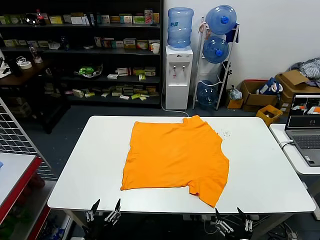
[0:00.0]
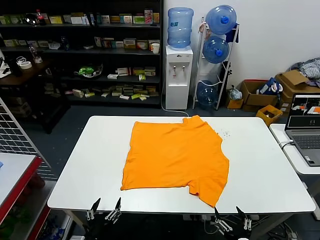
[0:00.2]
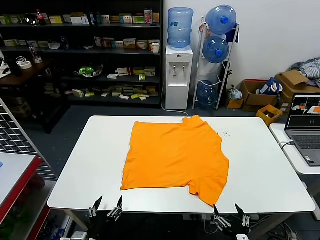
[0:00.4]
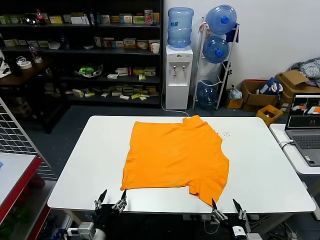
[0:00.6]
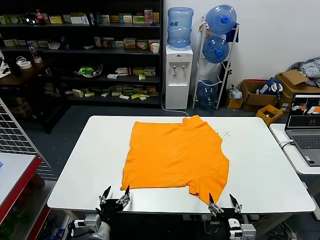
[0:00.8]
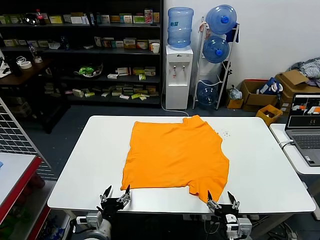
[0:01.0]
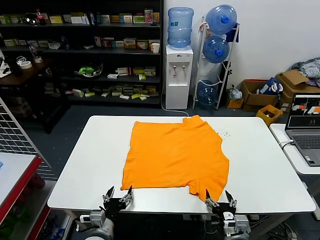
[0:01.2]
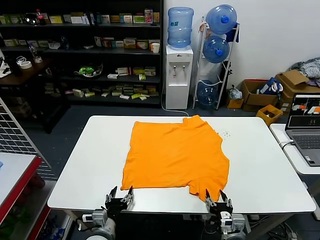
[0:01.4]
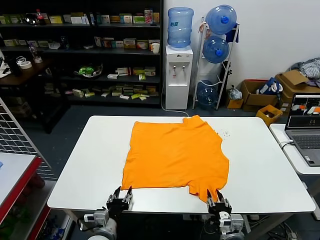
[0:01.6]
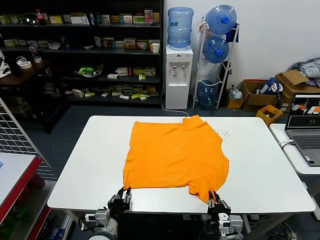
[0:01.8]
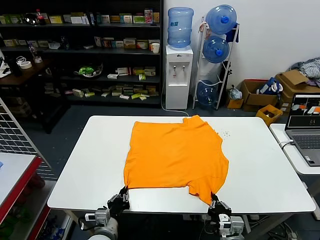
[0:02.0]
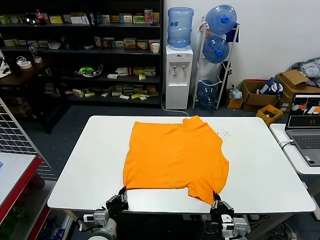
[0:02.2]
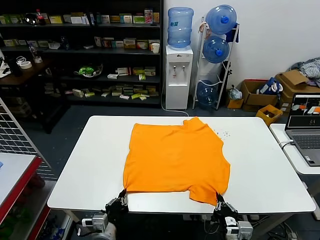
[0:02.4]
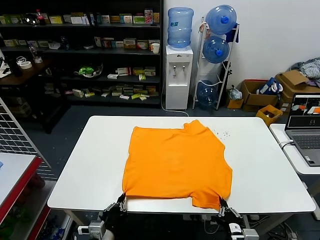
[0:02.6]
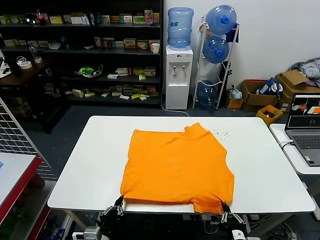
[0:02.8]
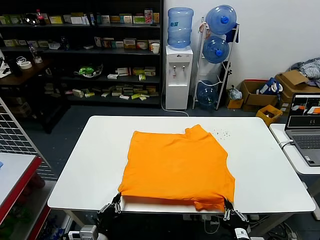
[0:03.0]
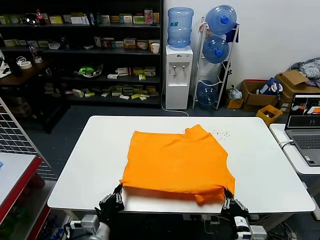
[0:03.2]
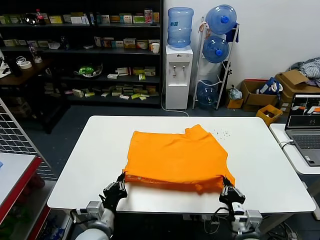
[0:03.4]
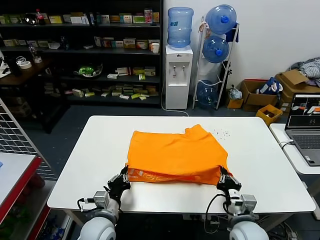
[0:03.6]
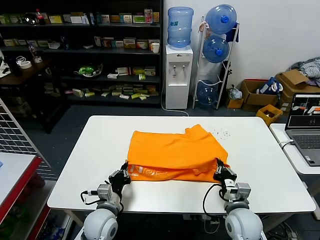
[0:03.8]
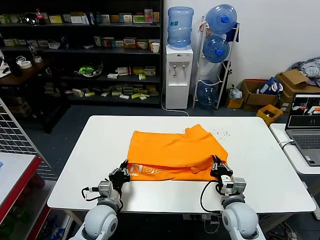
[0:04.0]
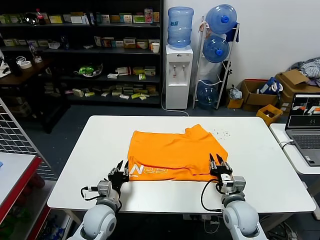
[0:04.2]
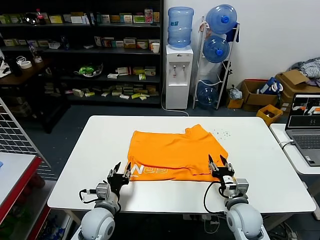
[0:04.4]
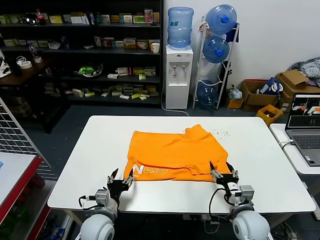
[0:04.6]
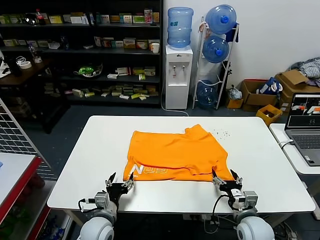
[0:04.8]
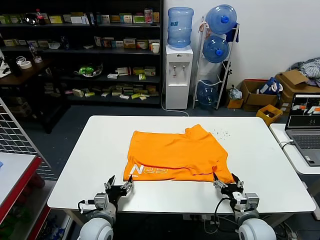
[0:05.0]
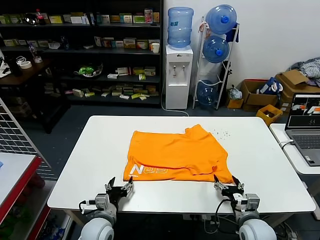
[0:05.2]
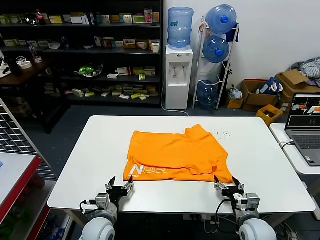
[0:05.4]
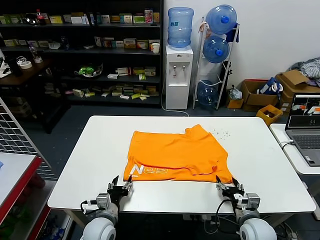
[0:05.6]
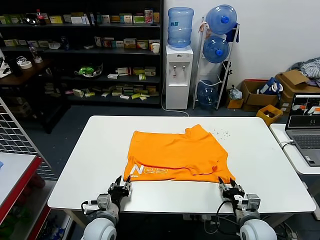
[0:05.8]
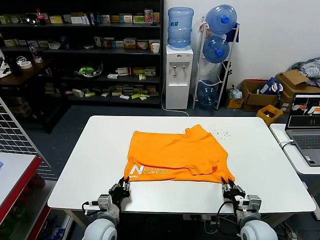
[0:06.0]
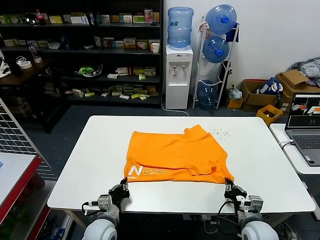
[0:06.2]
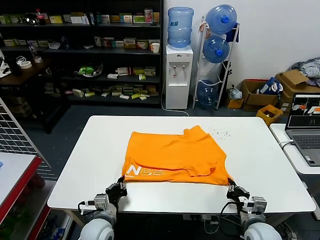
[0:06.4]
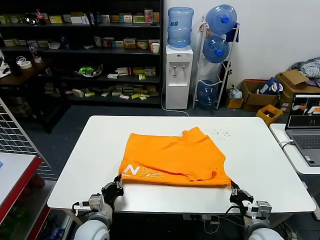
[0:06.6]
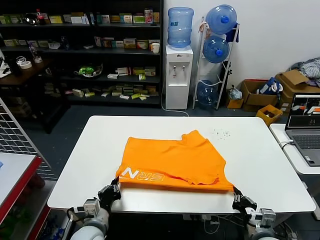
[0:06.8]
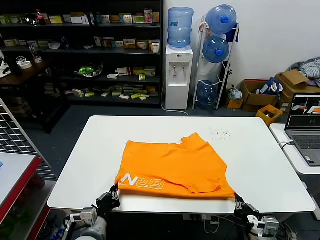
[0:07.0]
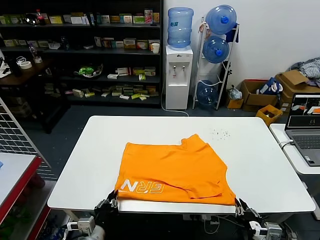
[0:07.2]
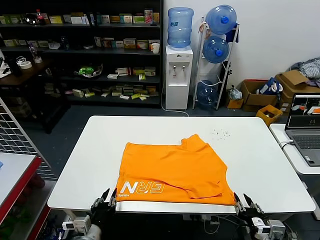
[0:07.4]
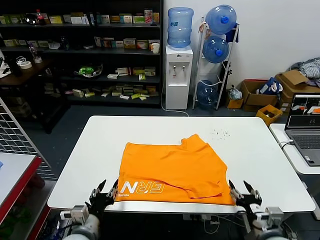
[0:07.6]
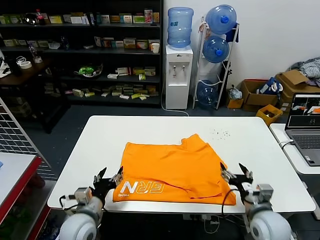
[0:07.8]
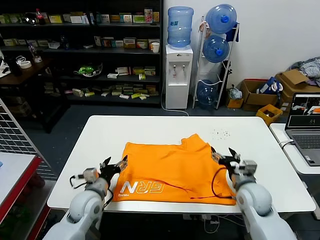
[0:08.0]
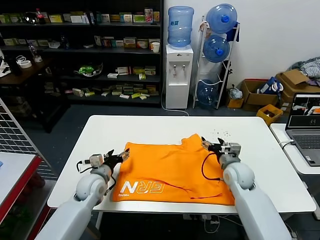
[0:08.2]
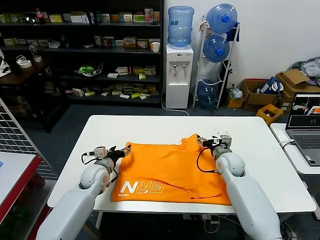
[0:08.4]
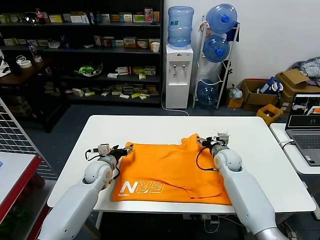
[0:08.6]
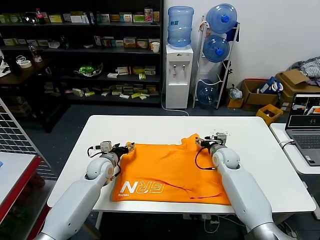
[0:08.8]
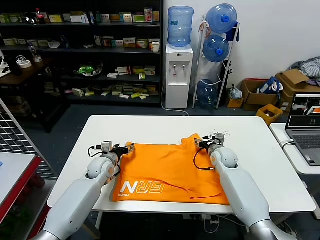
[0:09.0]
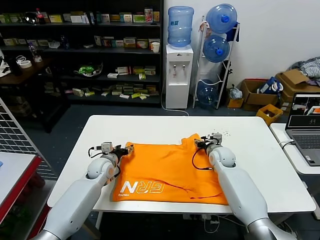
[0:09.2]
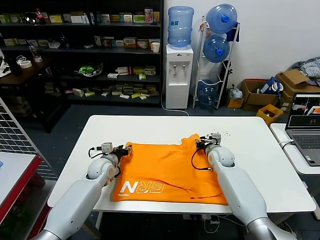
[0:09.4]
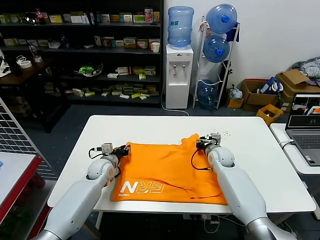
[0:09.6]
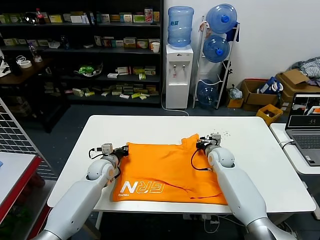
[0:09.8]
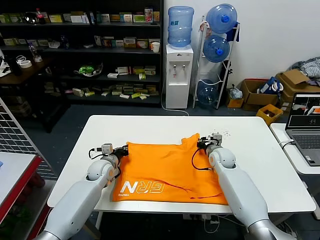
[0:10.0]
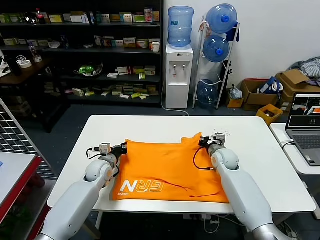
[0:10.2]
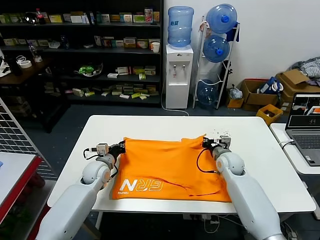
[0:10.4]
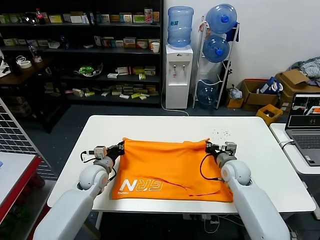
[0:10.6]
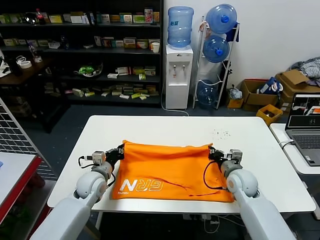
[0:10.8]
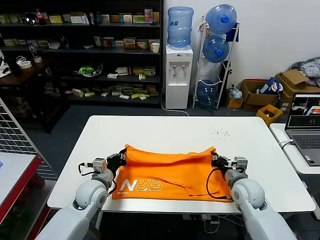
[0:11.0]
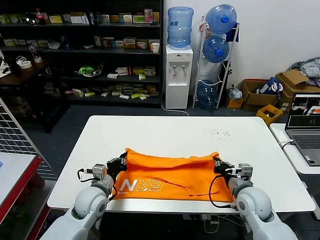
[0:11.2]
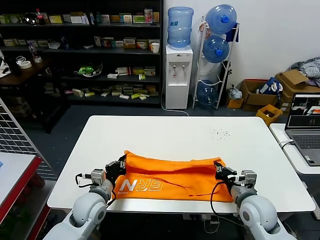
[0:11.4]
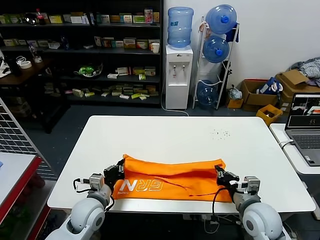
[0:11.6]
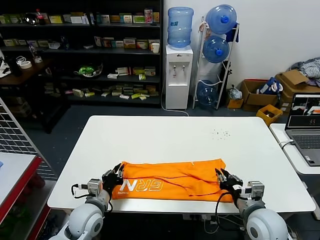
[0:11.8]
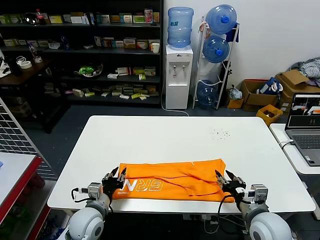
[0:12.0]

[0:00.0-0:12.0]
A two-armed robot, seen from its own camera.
Task of the whole recording: fold and organize the clothes.
Step, 0:00.0 to 0:02.2: use both grippers simultaneously to clamp the lower edge of the clothing fabric.
Step, 0:02.6 to 0:04.6: use both grippers to drag the lower edge of the fabric forward and fold it over the upper edge.
Step, 0:04.8 to 0:07.6: Drag the clothes downward with both gripper.
0:01.6 to 0:03.0: The left gripper travels backward and upward by about 10 cm, and closes up. The right gripper is displaced upward and backward by approximately 10 cm, and closes up.
0:03.0 to 0:04.4: Both grippers travel together forward, about 15 cm. The left gripper opens. Meanwhile the right gripper opens.
0:04.4 to 0:06.0: The right gripper ends up roughly 5 cm from where it was, and closes up; the left gripper opens and closes again.
0:06.0 to 0:07.6: The right gripper shifts roughly 5 cm upward, and opens; the left gripper heads upward and backward, covering roughly 10 cm, and opens its fingers.
0:07.6 to 0:09.0: Both grippers travel together forward, some 30 cm.
0:09.0 to 0:10.4: The right gripper closes, while the left gripper closes up.
0:10.4 to 0:12.0: The two grippers go roughly 20 cm backward. The left gripper opens up. The right gripper opens its fingers.

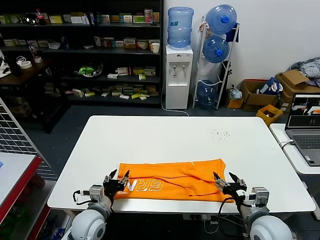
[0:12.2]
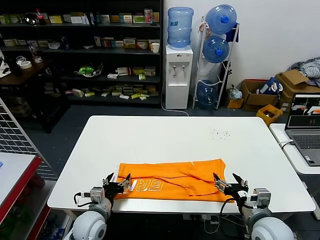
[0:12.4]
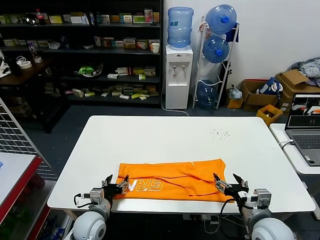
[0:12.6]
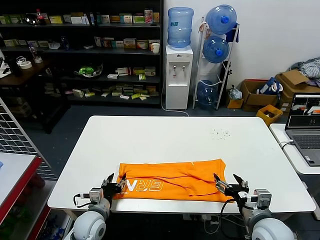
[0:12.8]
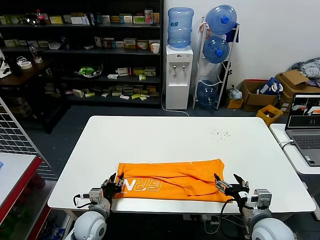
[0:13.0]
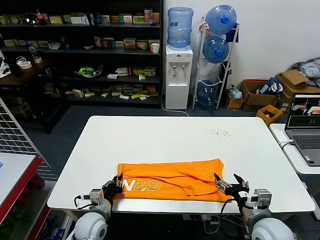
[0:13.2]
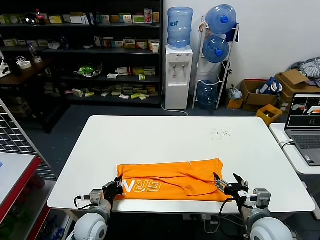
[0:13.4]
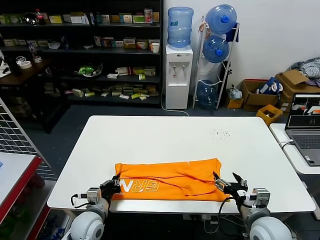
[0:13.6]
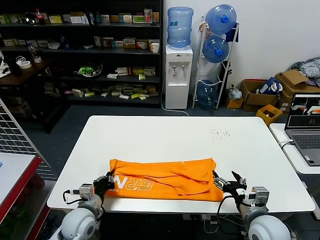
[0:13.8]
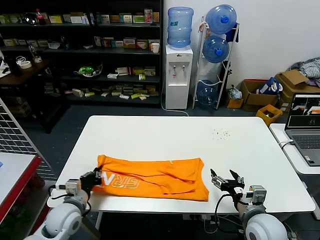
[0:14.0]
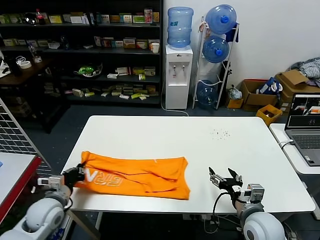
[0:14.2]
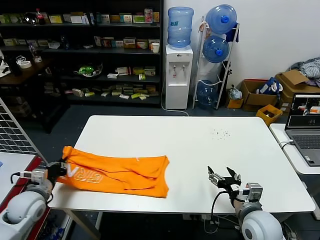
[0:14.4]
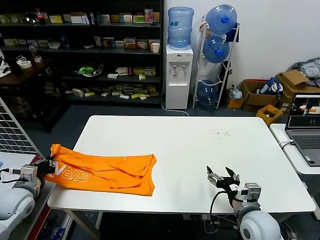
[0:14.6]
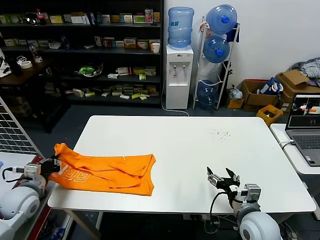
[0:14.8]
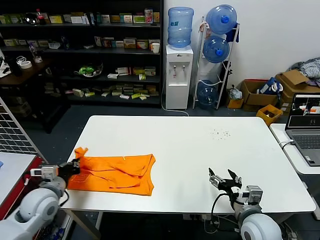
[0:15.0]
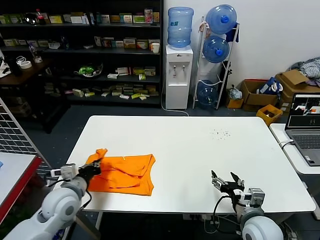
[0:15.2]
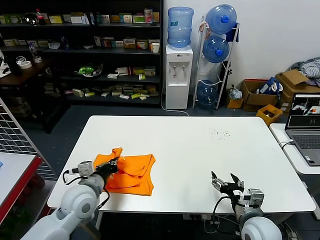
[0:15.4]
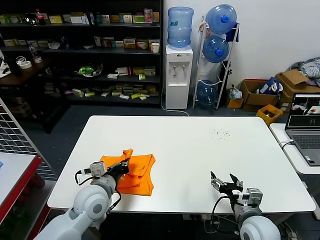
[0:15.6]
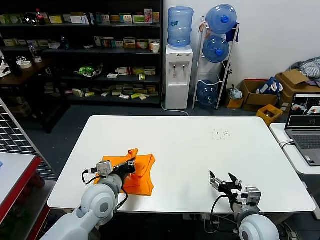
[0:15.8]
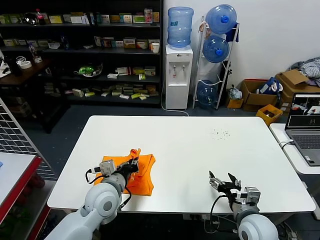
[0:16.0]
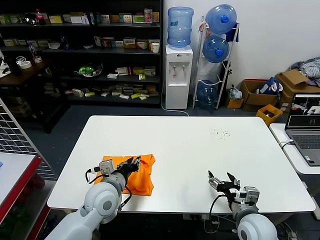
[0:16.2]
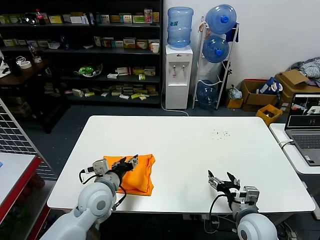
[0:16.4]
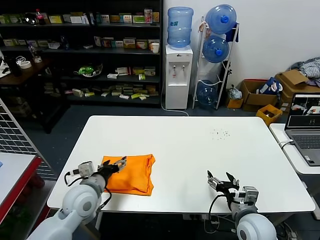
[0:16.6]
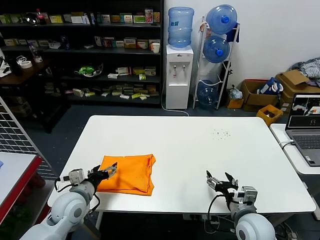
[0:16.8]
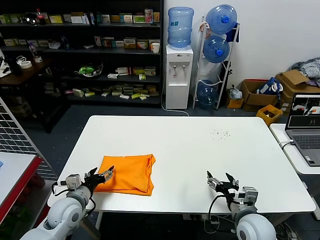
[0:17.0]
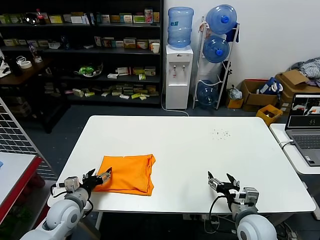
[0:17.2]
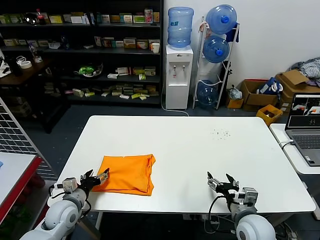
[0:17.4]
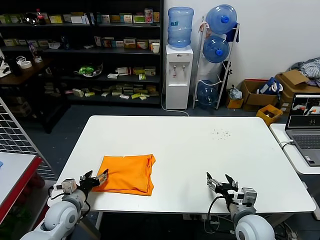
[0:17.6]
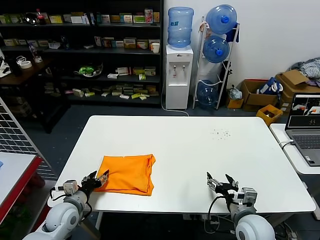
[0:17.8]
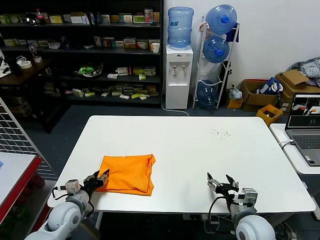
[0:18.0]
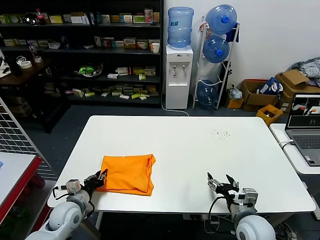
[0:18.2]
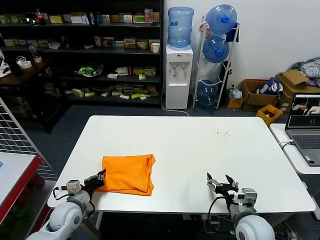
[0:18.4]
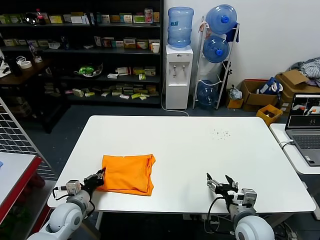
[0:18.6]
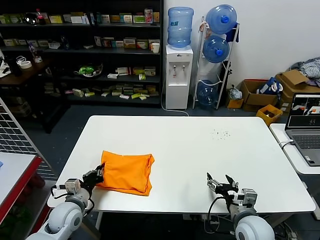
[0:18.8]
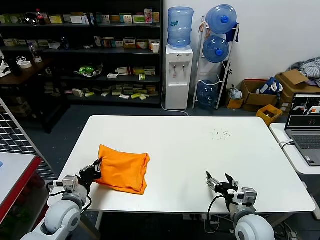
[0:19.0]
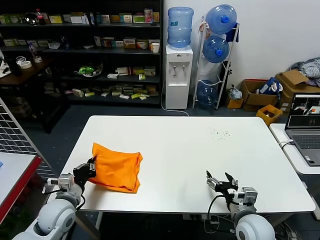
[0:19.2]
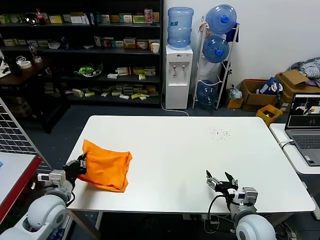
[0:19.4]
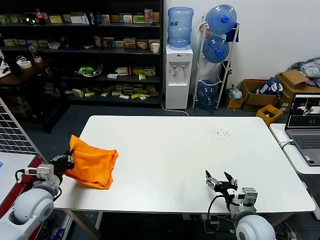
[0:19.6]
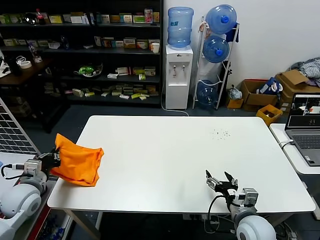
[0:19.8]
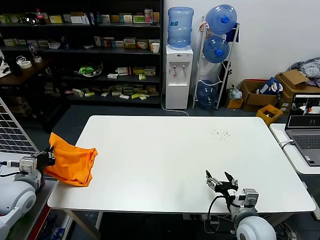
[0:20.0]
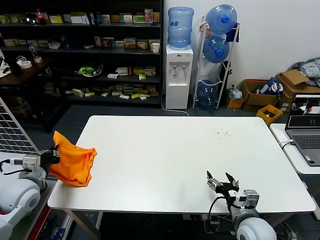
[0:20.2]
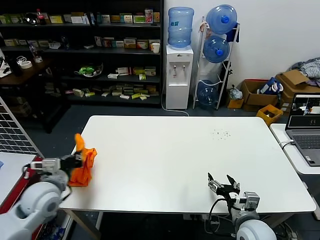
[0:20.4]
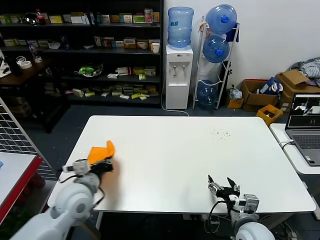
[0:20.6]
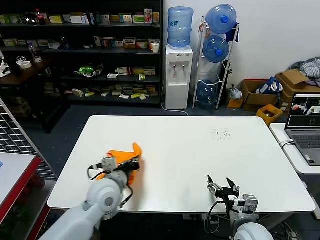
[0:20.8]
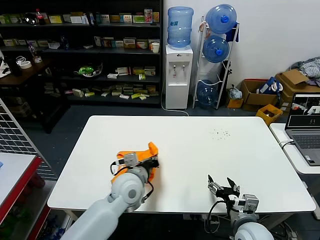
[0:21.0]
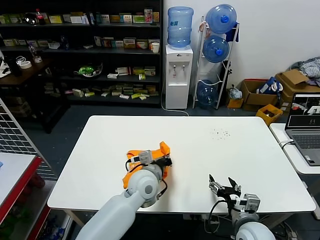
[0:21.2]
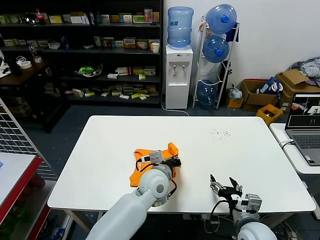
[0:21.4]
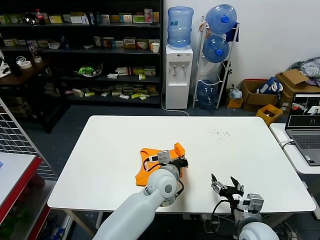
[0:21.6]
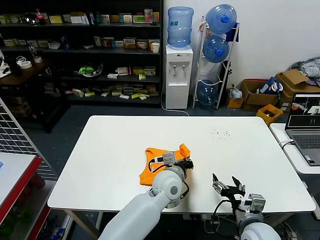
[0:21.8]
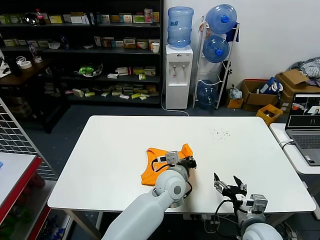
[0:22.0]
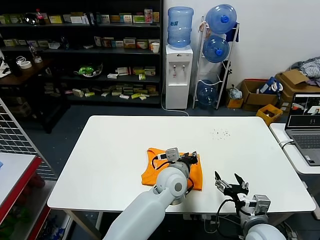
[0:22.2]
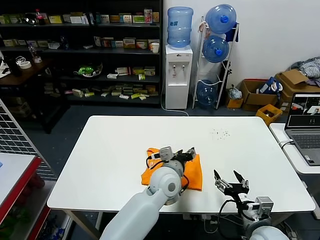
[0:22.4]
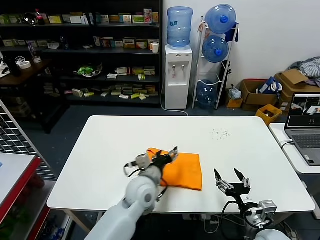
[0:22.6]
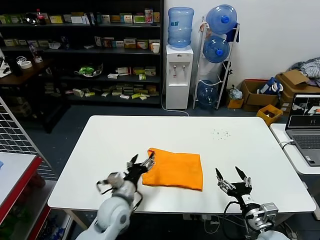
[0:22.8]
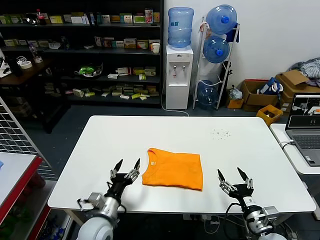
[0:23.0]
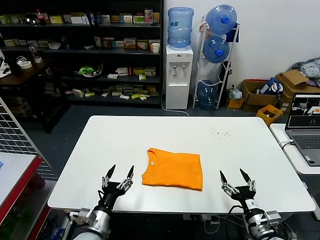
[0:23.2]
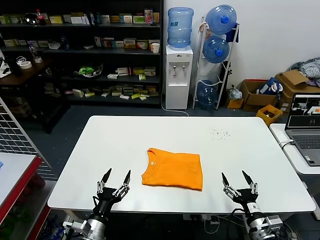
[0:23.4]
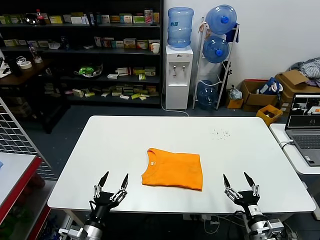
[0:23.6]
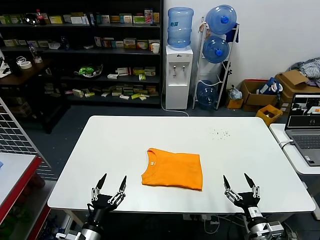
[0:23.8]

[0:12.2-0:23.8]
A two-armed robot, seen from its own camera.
Task of the whole recording: fold and organize the clothes.
Step, 0:12.2 to 0:13.6: use the left gripper to clamp the left edge of the fabric.
Step, 0:13.8 to 0:16.4: use the left gripper to drag the left edge of the fabric to the left and folds it over the right edge.
Step, 0:16.6 to 0:22.4: Flip the folded clothes over with left gripper.
0:12.2 to 0:13.6: The left gripper closes.
0:13.6 to 0:15.0: The left gripper moves to the left and upward, some 20 cm.
0:15.0 to 0:16.6: The left gripper travels to the right by approximately 15 cm, and opens its fingers.
0:16.6 to 0:18.0: The left gripper heads downward and to the left, covering about 15 cm.
0:18.0 to 0:19.4: The left gripper is displaced upward by roughly 10 cm, and closes up.
0:19.4 to 0:21.0: The left gripper heads to the right, covering approximately 20 cm.
0:21.0 to 0:22.4: The left gripper is displaced to the right by some 15 cm, and opens up.
0:22.4 to 0:23.8: The left gripper moves to the left, backward and downward, roughly 35 cm, and opens up; the right gripper moves downward, roughly 5 cm.
